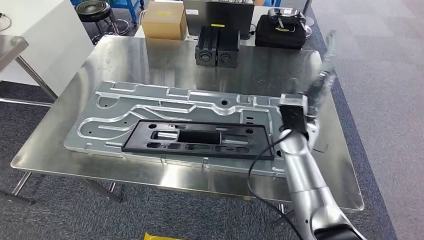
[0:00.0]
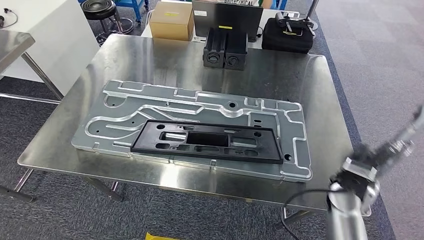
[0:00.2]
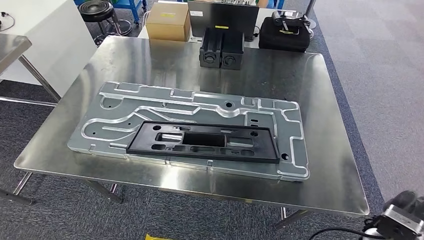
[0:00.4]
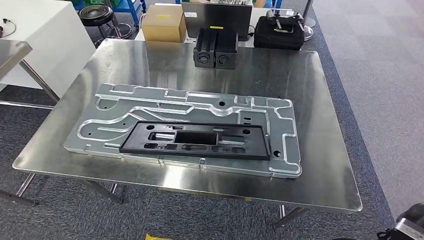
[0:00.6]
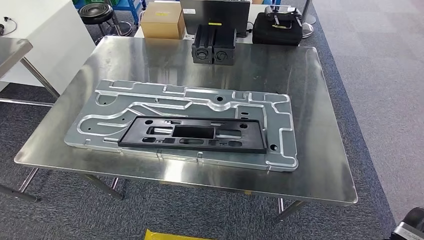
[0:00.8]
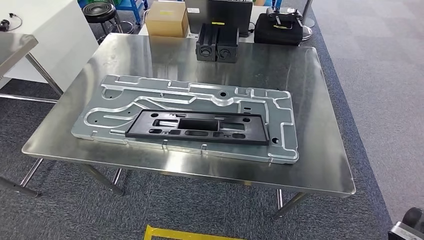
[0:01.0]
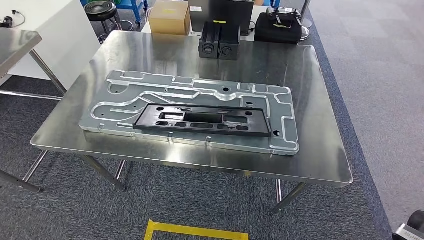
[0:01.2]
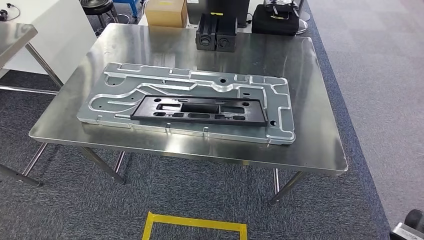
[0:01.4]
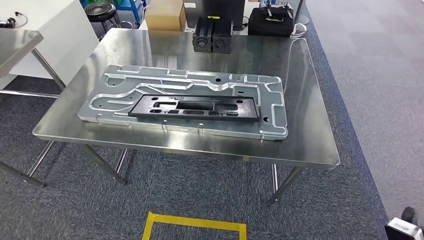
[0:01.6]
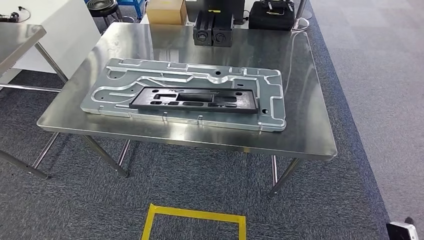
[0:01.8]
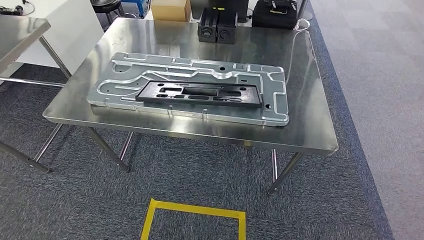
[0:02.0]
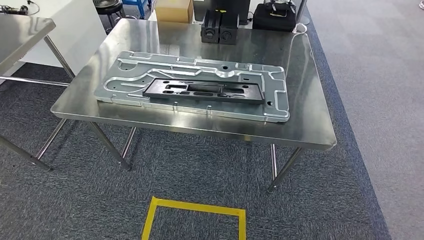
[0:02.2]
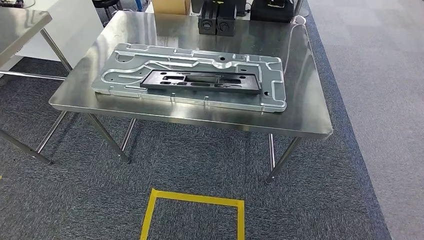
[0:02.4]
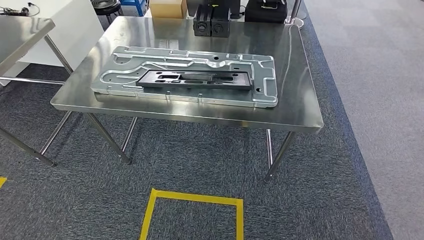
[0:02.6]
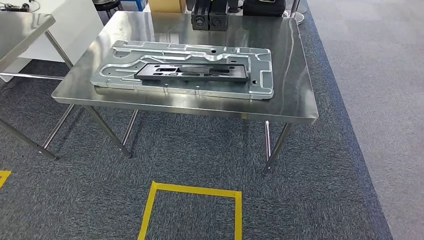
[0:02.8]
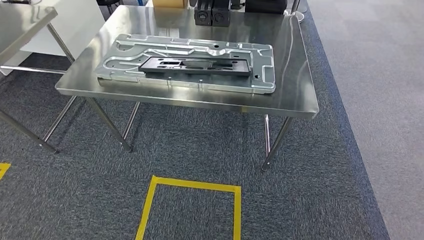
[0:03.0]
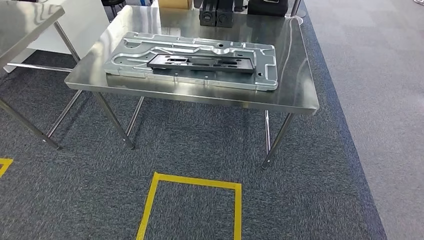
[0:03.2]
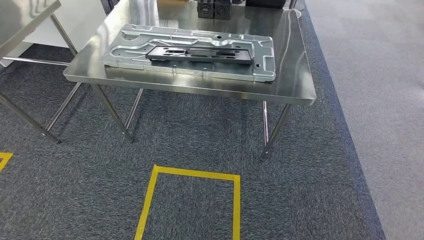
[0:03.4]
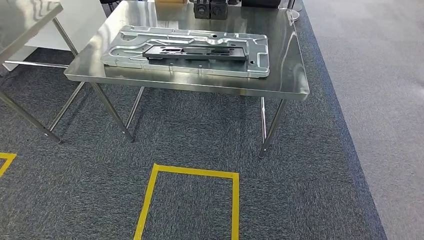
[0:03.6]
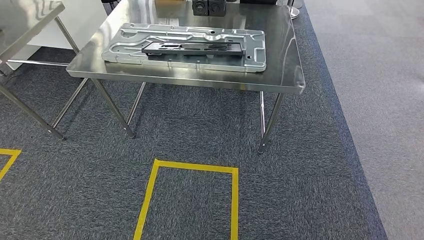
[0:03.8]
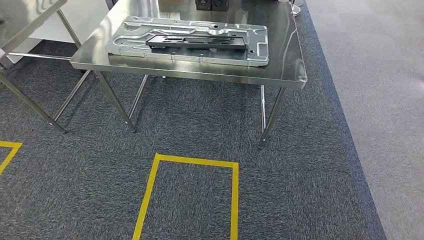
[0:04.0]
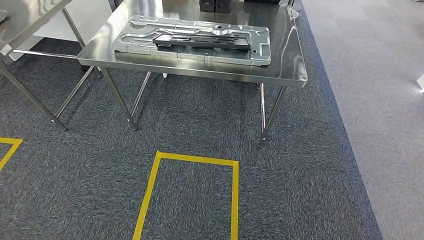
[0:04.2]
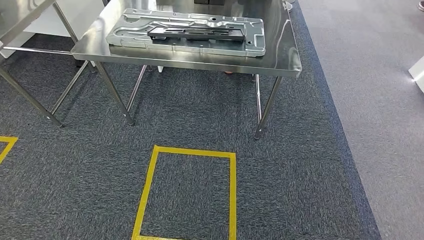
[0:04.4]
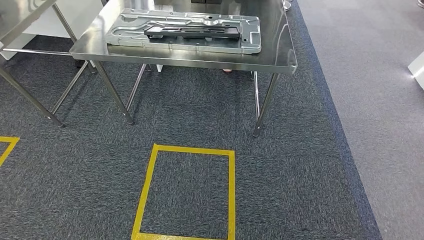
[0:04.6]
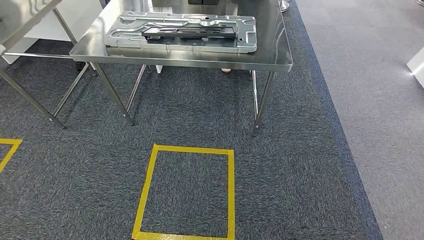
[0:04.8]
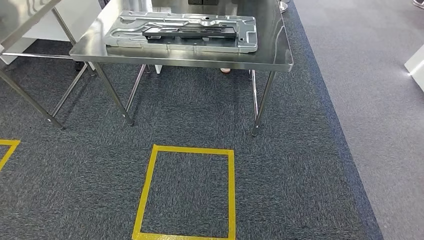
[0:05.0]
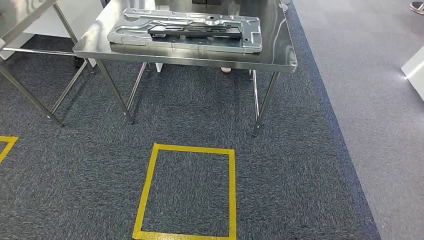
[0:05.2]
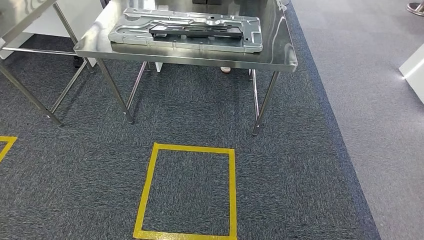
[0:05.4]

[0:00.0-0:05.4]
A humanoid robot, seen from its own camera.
Step, 0:00.4 to 0:05.4: Move to the initial position of the shelf.
